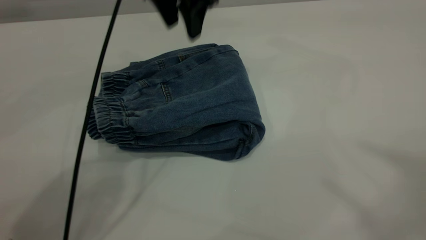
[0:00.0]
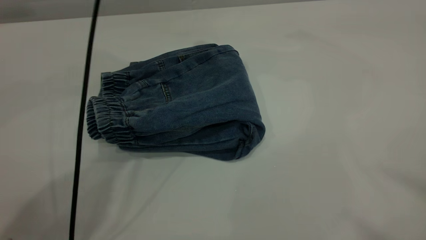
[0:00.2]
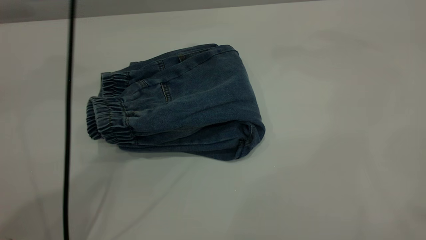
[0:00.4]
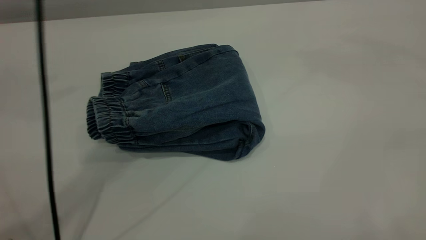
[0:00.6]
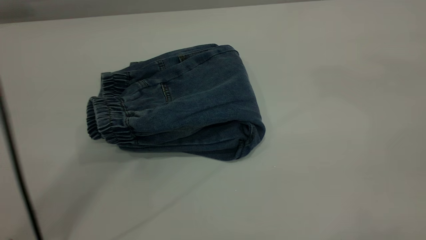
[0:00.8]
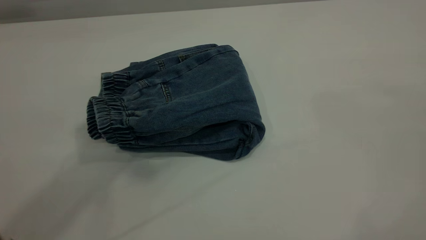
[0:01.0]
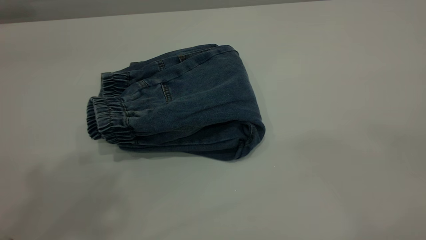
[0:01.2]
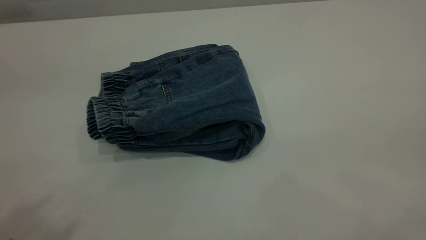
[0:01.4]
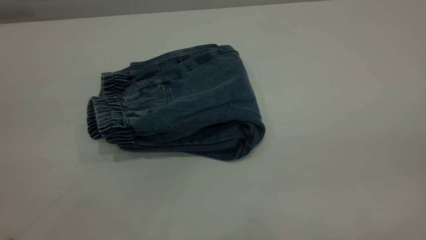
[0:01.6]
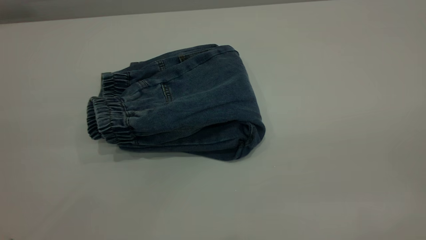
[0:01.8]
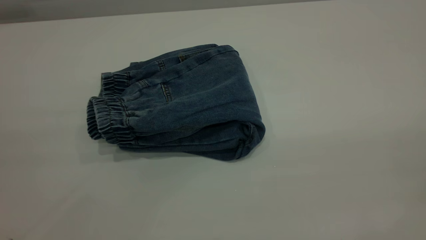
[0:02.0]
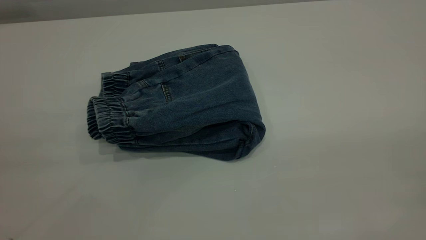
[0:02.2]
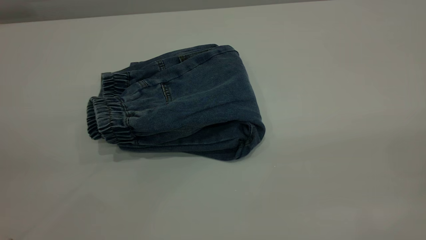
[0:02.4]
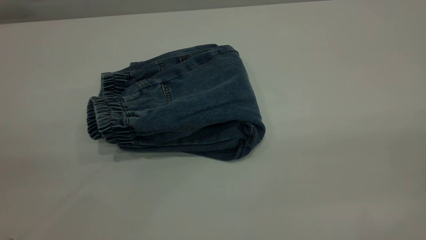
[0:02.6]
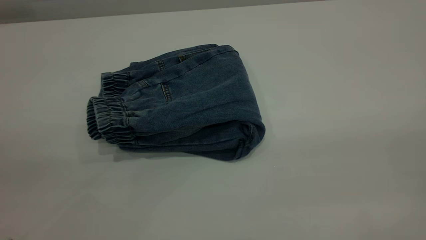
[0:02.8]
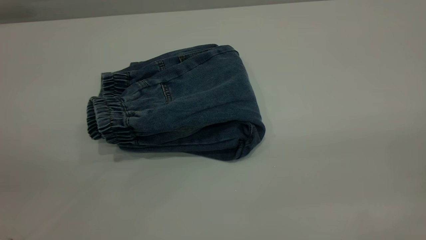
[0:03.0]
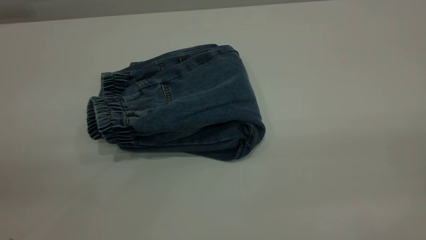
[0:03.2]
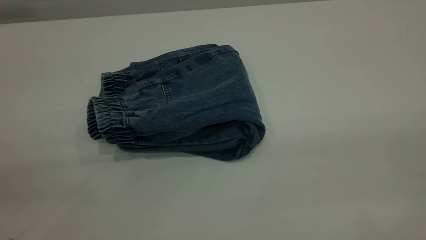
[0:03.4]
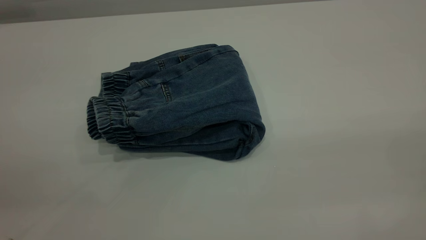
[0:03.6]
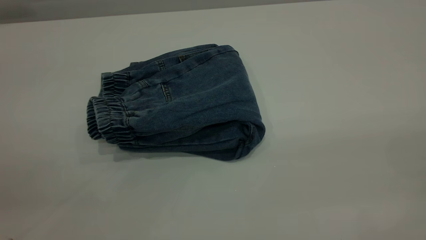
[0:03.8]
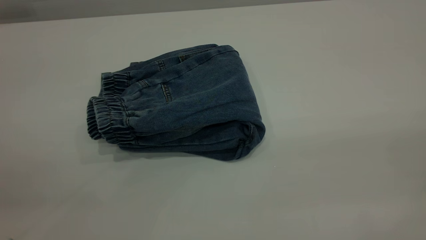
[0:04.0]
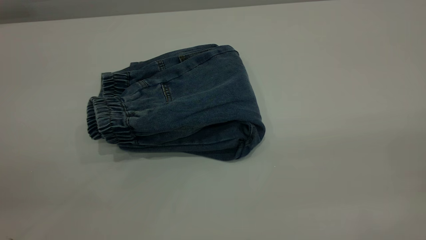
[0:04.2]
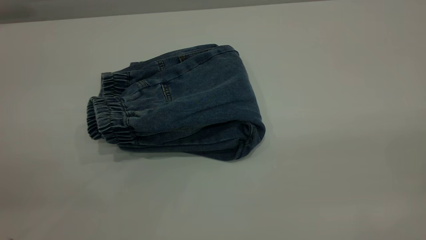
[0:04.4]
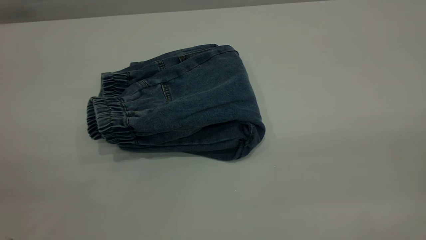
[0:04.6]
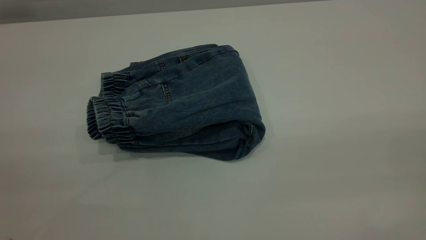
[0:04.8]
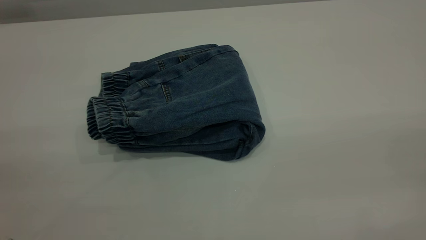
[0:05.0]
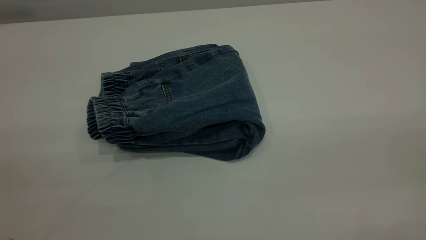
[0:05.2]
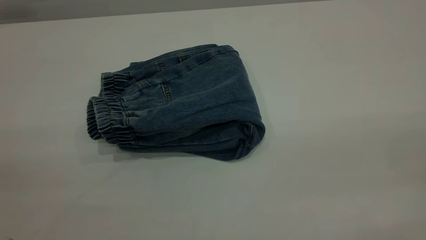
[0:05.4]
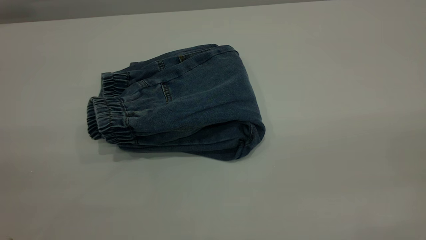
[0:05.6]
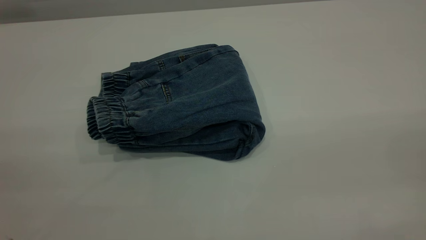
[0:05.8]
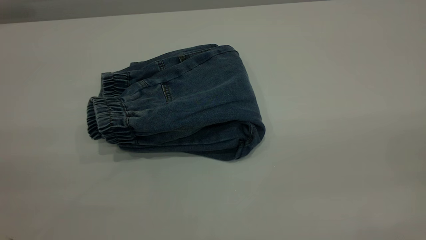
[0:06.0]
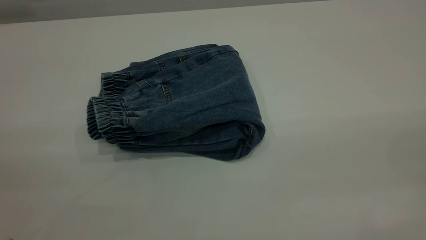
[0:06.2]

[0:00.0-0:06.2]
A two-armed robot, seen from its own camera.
0:00.0 to 0:01.6: The left gripper shifts roughly 50 cm backward, to the left and upward. Meanwhile the right gripper goes some 25 cm backward and downward.

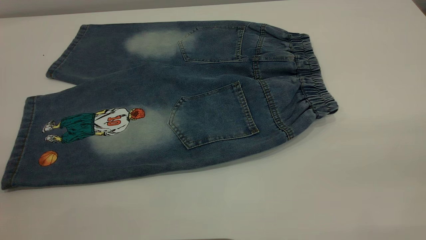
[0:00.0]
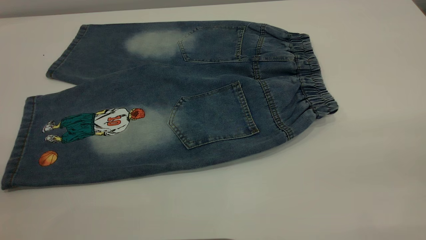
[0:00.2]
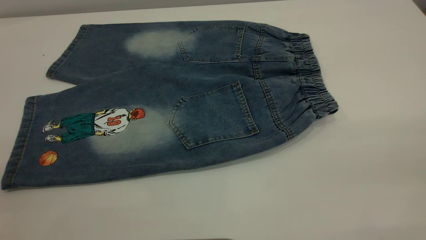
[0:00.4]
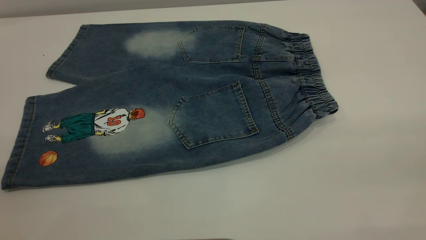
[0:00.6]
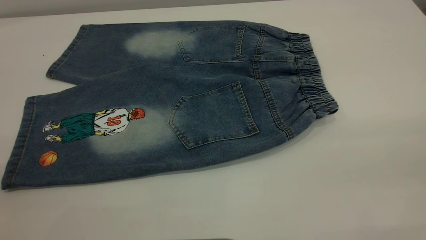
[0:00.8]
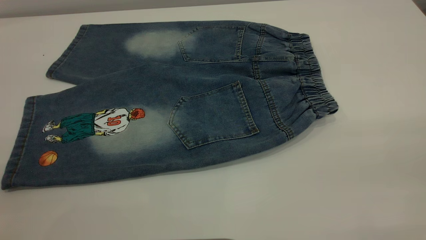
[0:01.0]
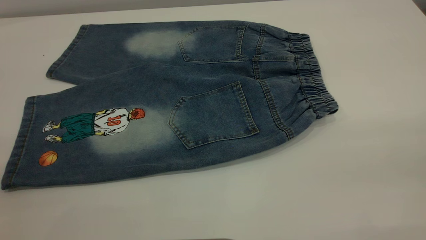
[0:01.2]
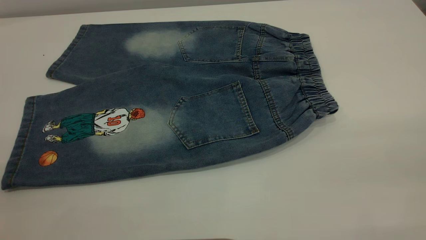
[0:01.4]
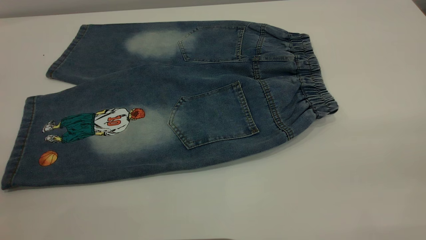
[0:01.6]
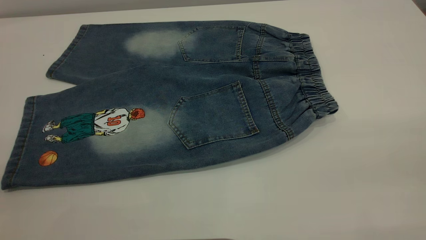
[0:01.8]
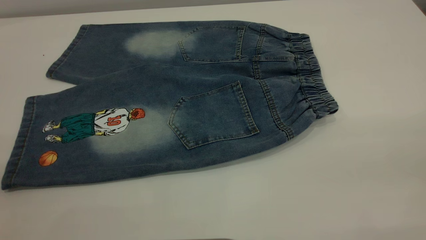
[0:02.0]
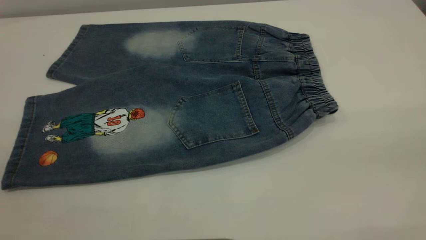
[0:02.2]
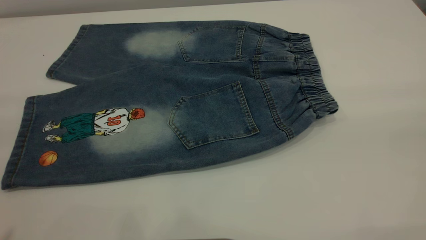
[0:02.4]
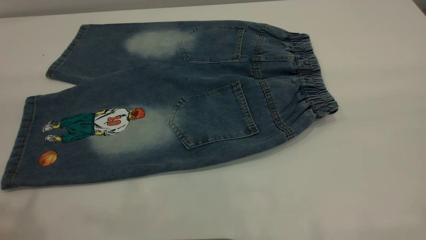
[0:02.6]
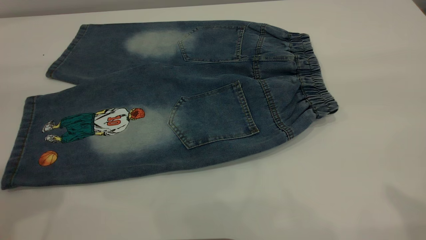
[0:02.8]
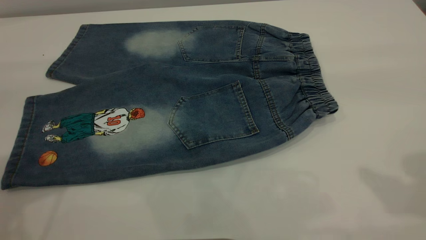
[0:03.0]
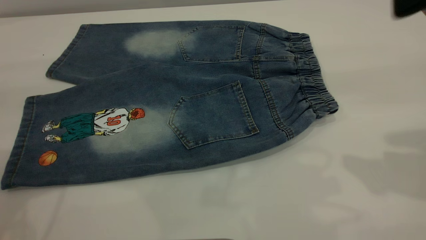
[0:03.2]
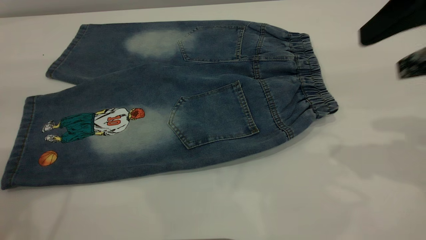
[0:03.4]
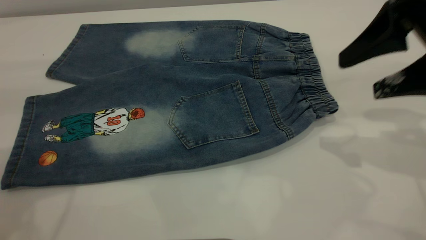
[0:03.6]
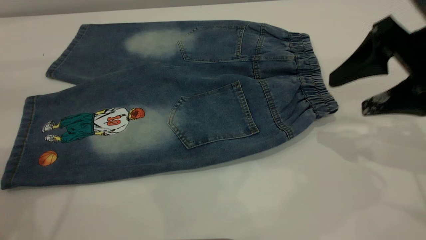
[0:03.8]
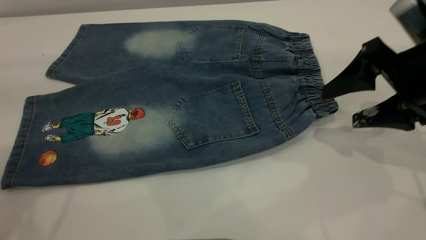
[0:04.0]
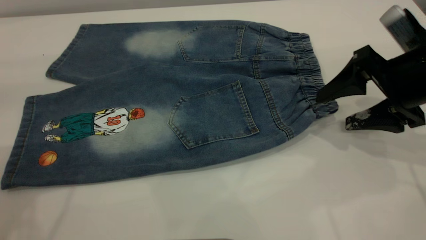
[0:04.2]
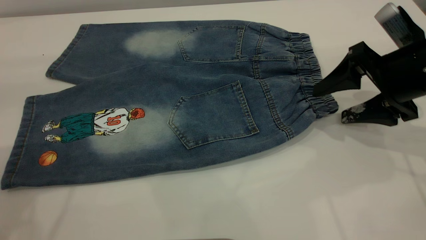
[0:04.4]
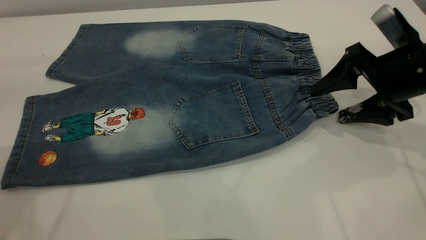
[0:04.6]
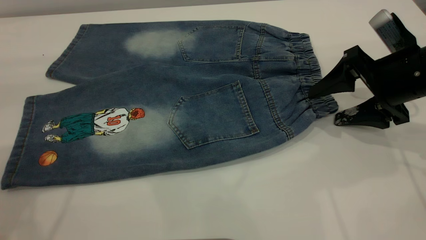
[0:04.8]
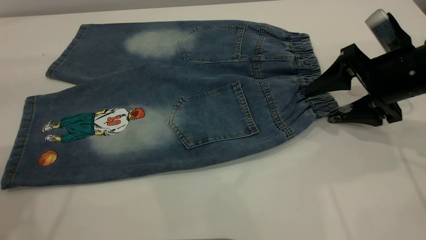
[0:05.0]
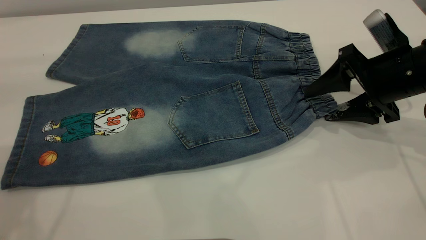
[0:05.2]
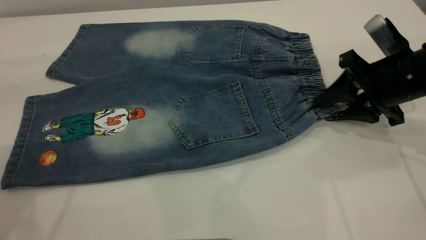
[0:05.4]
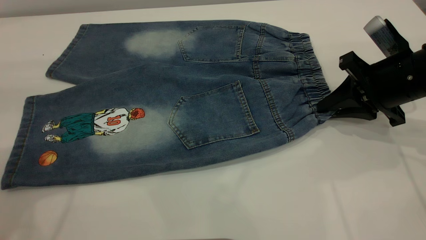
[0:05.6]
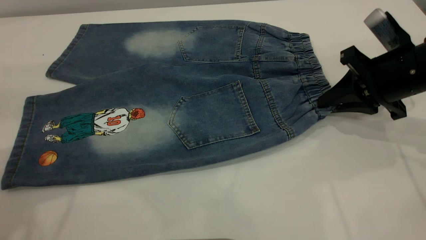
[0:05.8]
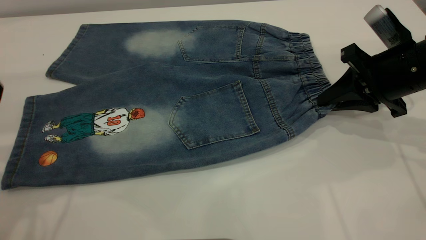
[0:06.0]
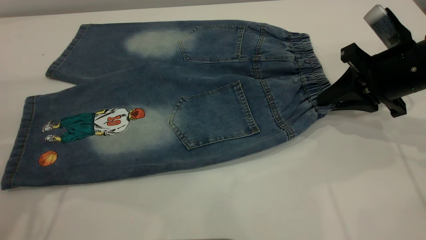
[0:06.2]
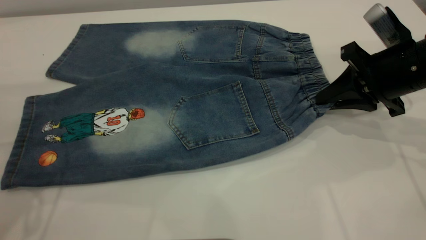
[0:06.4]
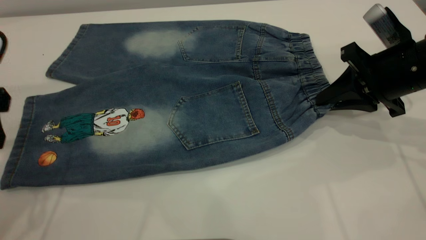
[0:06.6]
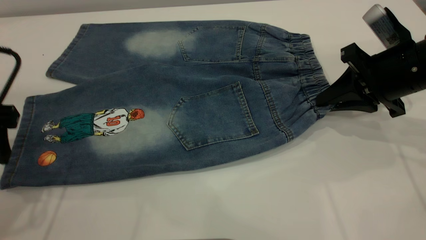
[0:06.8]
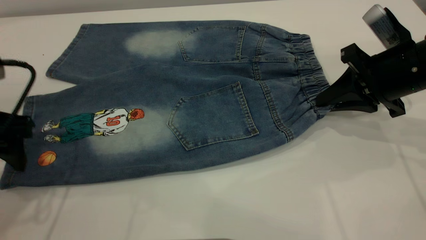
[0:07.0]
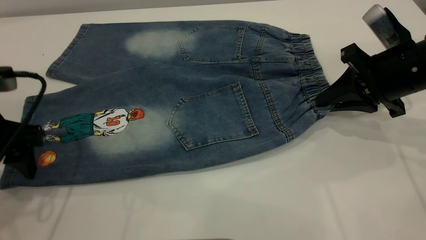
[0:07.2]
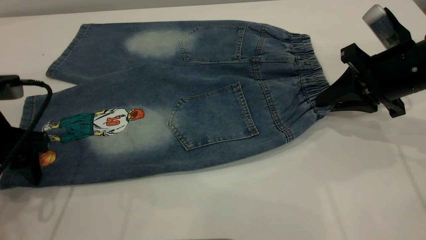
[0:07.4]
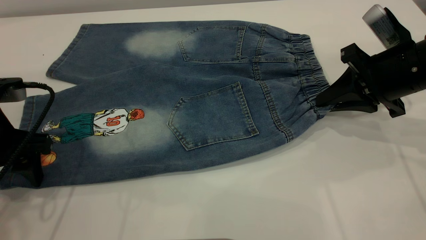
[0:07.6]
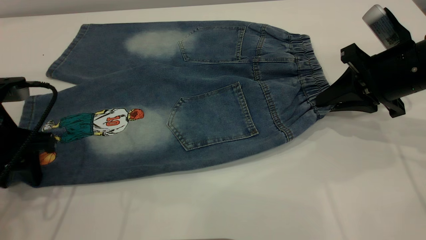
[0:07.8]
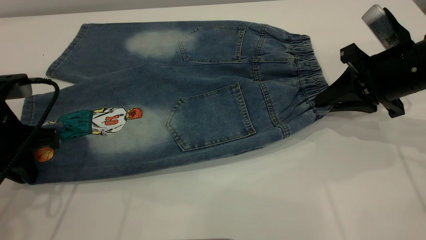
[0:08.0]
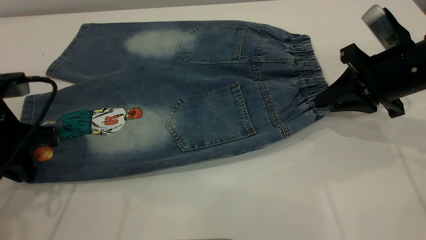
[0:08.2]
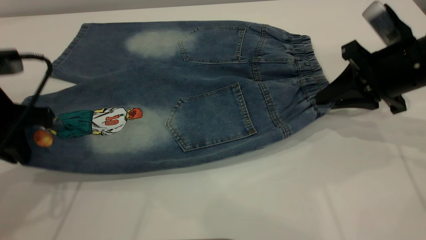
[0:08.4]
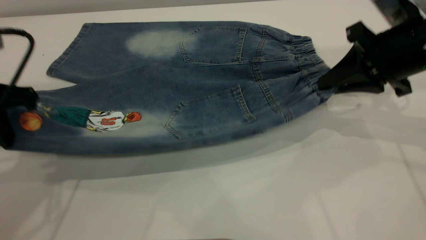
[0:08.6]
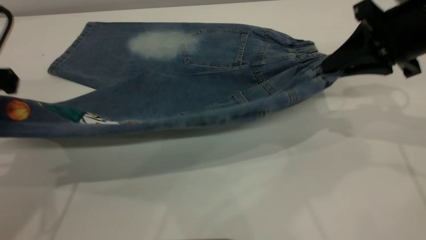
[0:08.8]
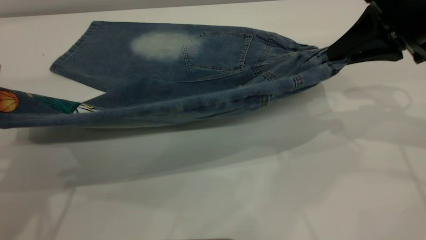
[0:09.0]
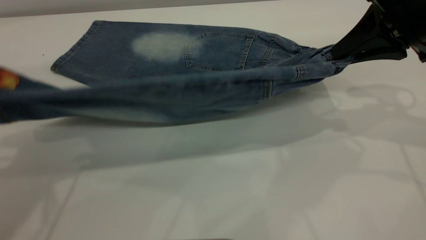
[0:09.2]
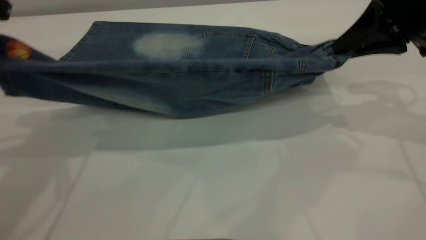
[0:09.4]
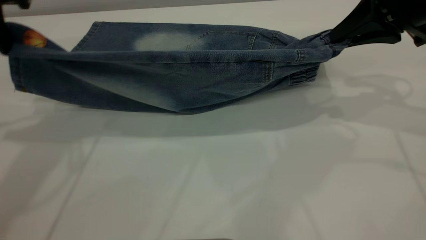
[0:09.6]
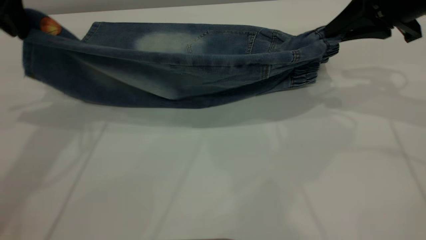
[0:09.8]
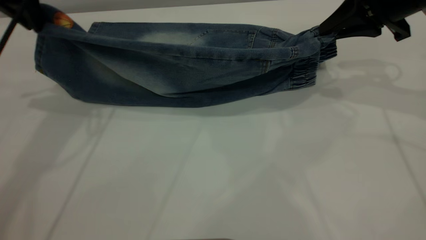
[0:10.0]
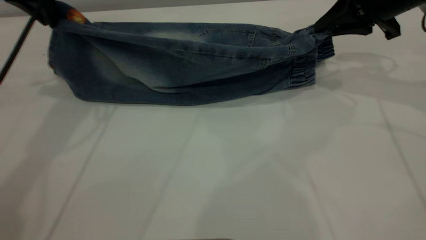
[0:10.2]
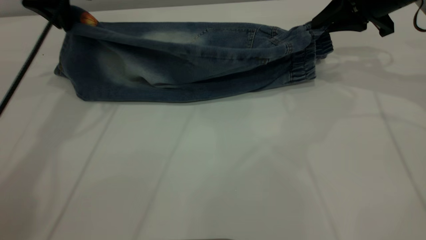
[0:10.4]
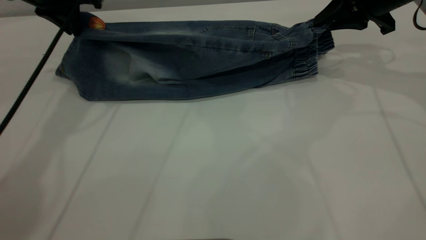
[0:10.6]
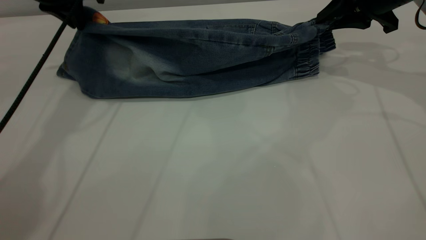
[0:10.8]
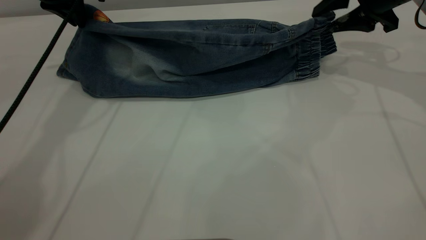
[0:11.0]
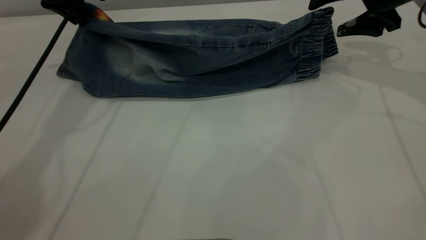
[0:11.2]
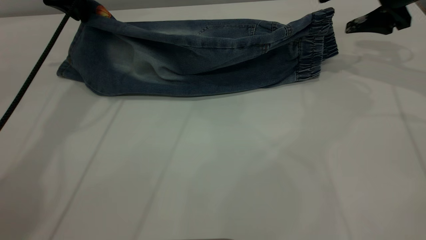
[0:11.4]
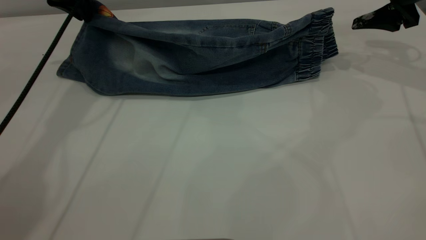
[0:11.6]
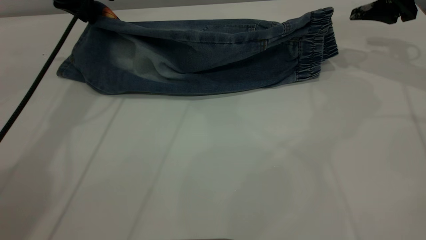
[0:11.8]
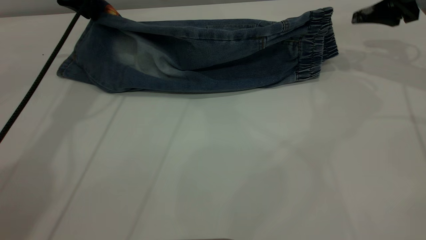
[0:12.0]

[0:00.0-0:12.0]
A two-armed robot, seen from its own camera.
0:00.0 to 0:01.6: The two grippers keep their place.
0:03.0 to 0:04.4: The right gripper moves downward and forward, roughly 25 cm.
0:04.4 to 0:06.0: The right gripper closes.
0:06.0 to 0:07.6: The left gripper is displaced downward by about 15 cm.
0:07.6 to 0:09.0: The two grippers go about 10 cm upward. The left gripper closes.
0:09.0 to 0:10.4: The right gripper heads forward, covering some 10 cm. The left gripper heads forward, covering approximately 20 cm.
0:10.4 to 0:12.0: The right gripper opens its fingers, while the left gripper ends up some 5 cm from where it was.
